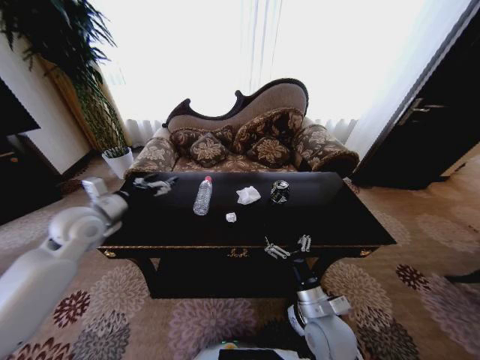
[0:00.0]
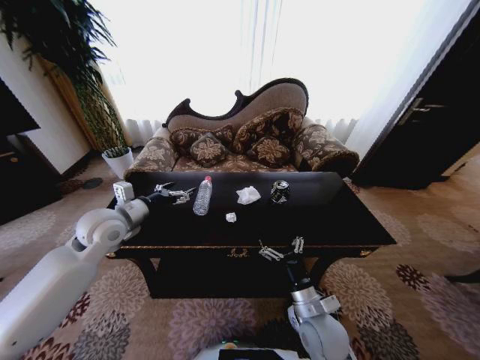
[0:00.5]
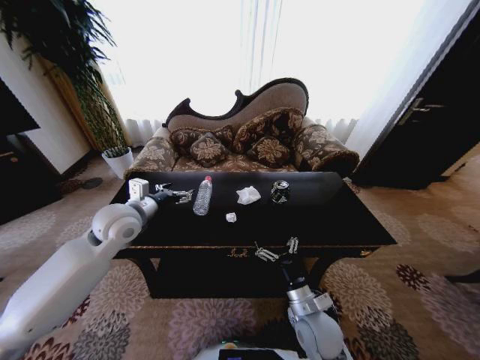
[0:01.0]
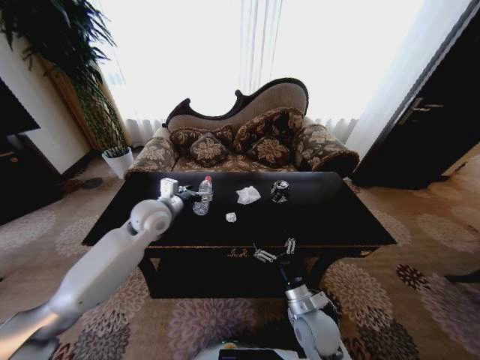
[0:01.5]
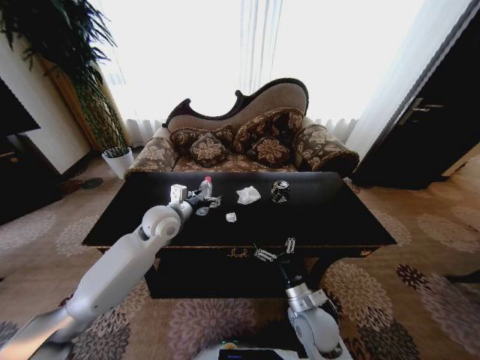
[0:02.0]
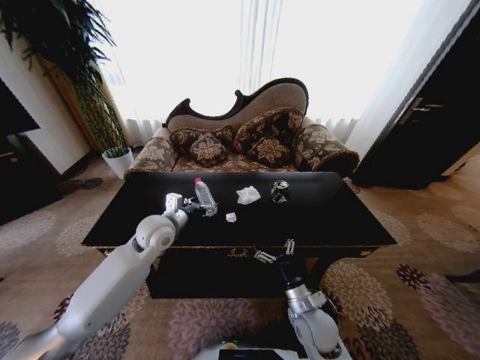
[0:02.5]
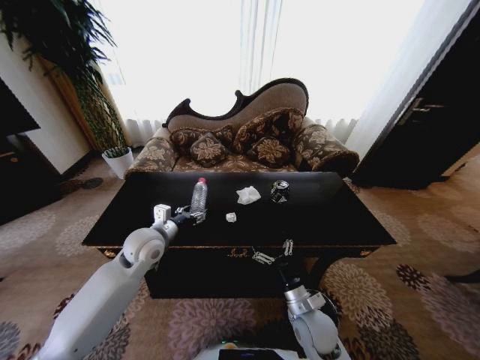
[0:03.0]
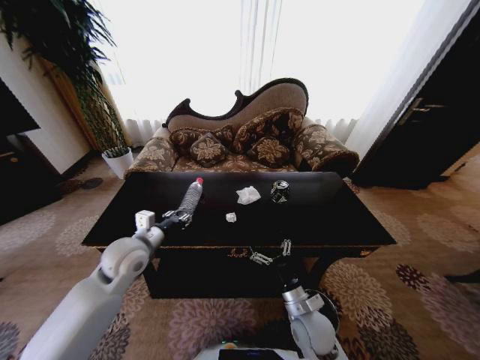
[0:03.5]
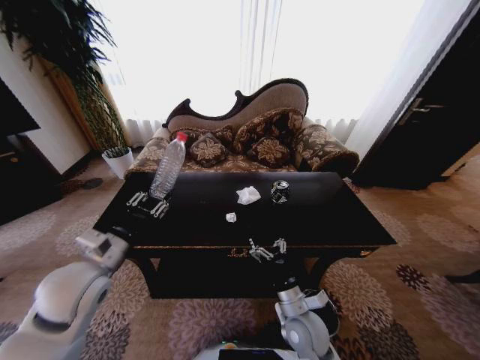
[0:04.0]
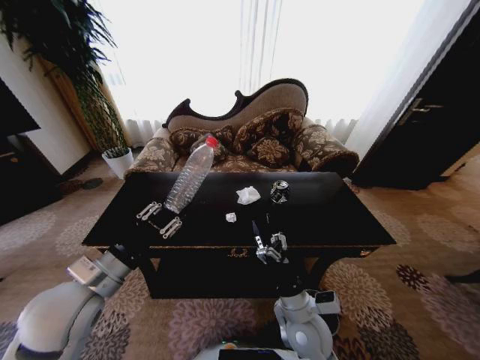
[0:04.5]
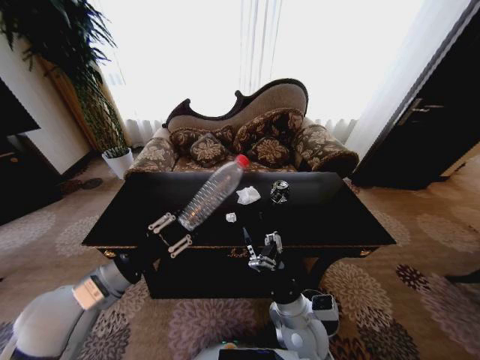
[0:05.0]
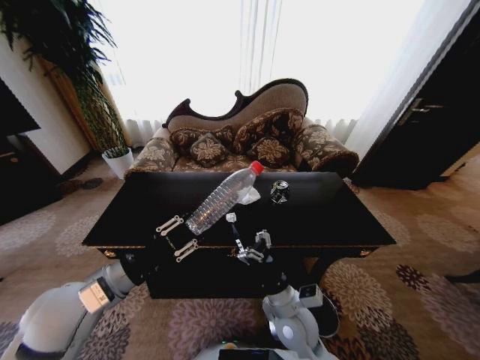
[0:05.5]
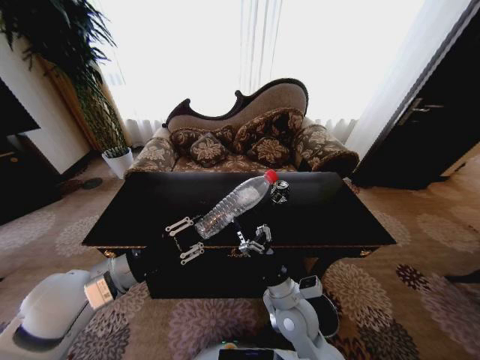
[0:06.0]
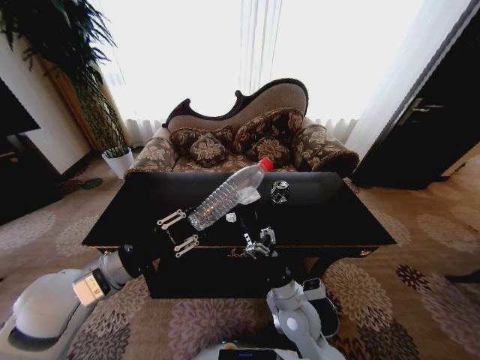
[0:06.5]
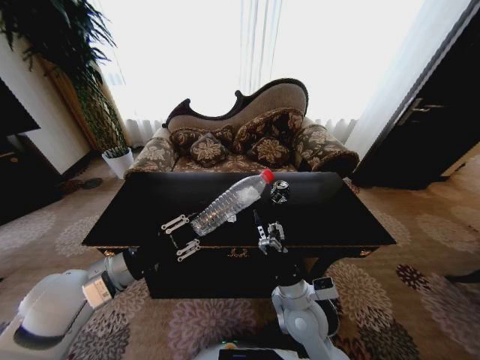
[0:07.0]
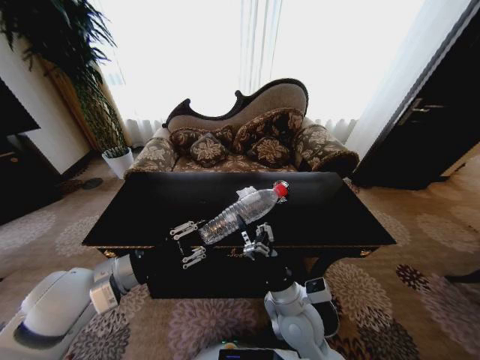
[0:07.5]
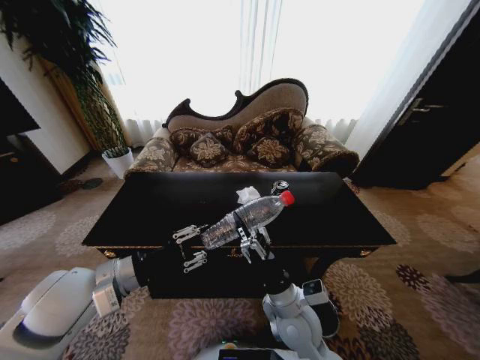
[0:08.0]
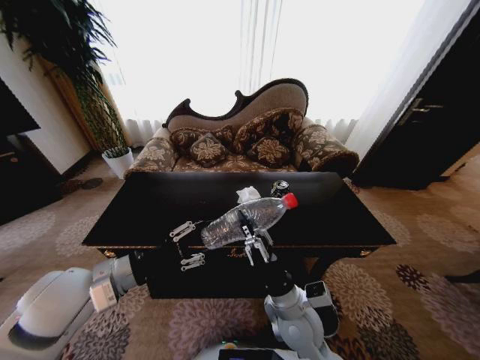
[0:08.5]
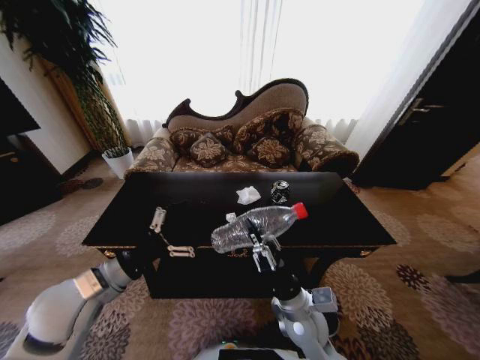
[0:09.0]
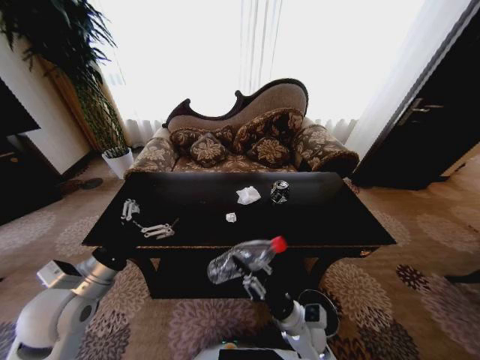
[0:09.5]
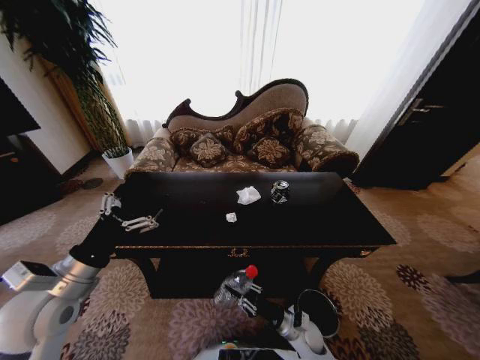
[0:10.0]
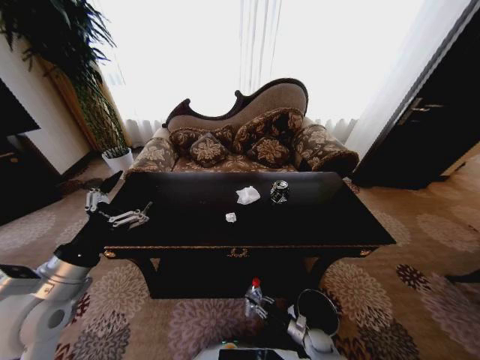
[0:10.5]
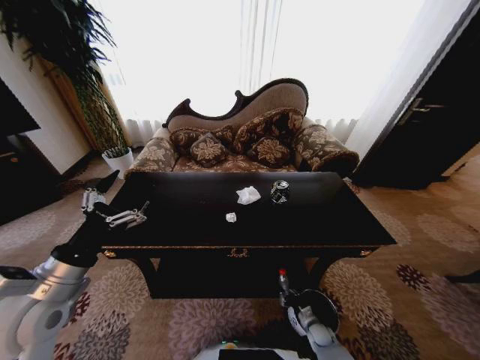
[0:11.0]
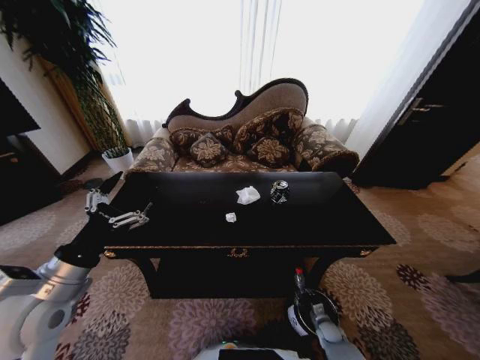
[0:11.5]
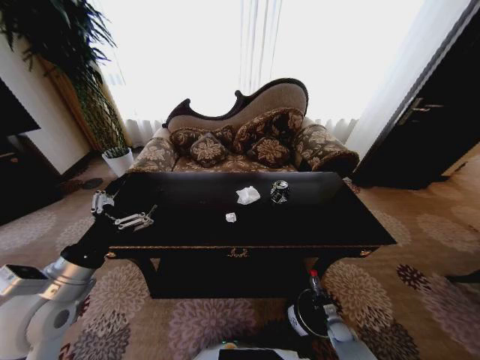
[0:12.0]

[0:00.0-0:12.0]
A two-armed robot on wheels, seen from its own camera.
Task of the whole recording: Move to the front of the table and place the trash on the table into the trash bin.
0:00.0 to 0:02.0: The right gripper shifts by roughly 5 cm. Meanwhile the left gripper goes about 15 cm to the right.
0:02.0 to 0:04.0: The left gripper is displaced backward and to the left by roughly 20 cm, and closes its fingers.
0:04.0 to 0:06.0: The right gripper shifts by approximately 5 cm.
0:06.0 to 0:08.0: There are only small adjustments of the grippers.
0:08.0 to 0:10.0: The right gripper heads downward and to the right, covering about 25 cm, and closes its fingers. The left gripper shifts some 5 cm to the left, and opens its fingers.
0:10.0 to 0:12.0: The right gripper is displaced to the right and downward by approximately 25 cm.

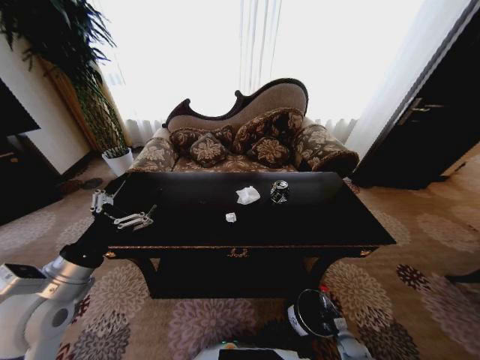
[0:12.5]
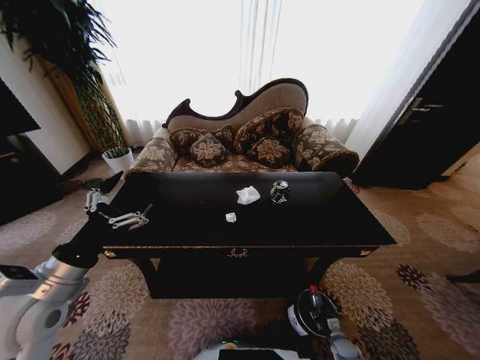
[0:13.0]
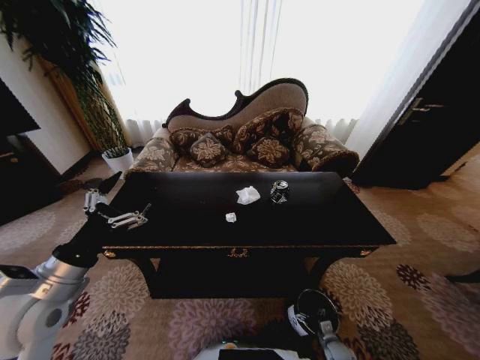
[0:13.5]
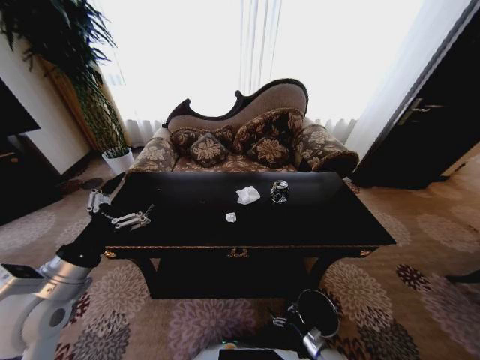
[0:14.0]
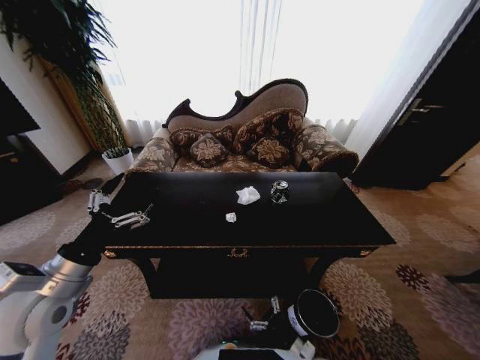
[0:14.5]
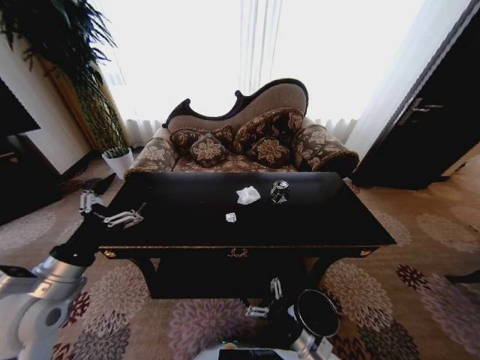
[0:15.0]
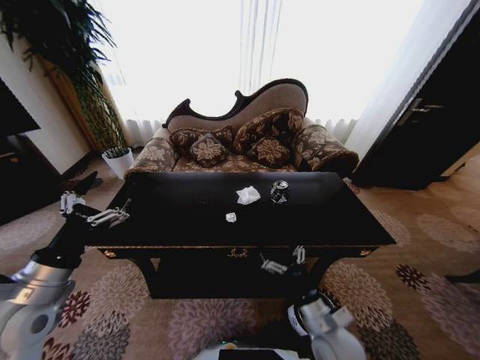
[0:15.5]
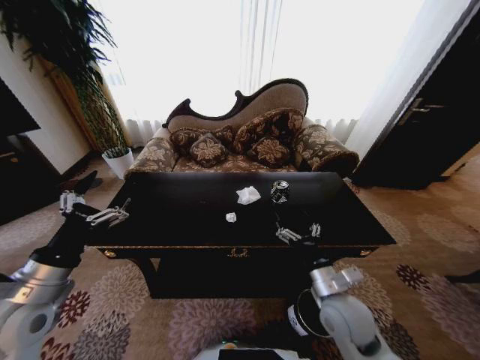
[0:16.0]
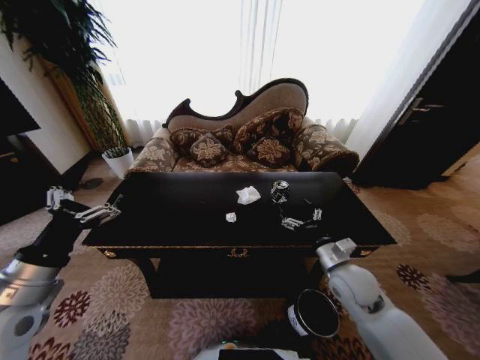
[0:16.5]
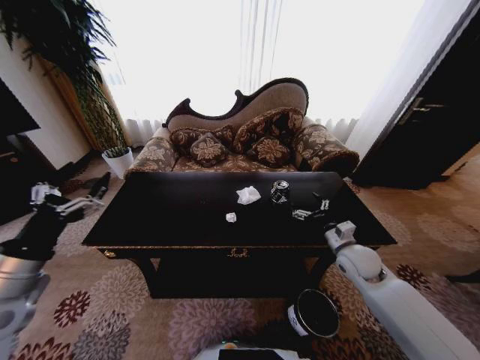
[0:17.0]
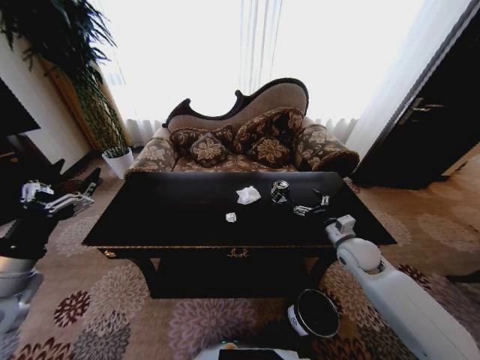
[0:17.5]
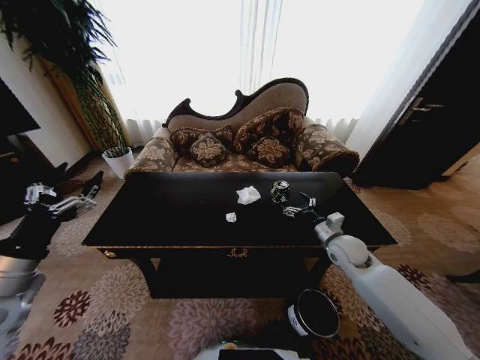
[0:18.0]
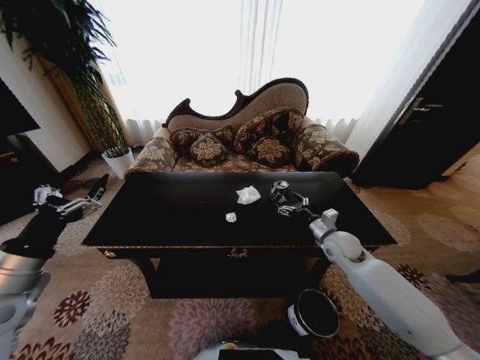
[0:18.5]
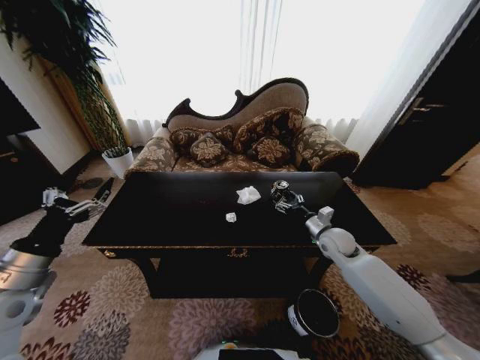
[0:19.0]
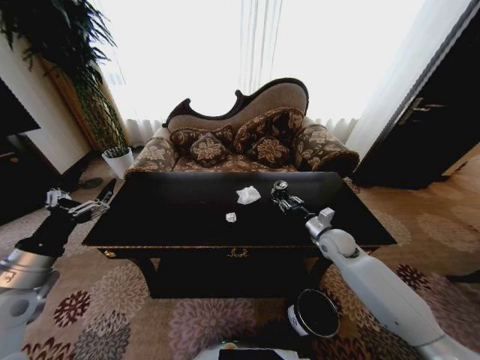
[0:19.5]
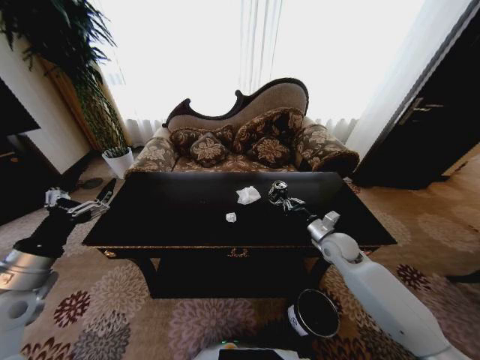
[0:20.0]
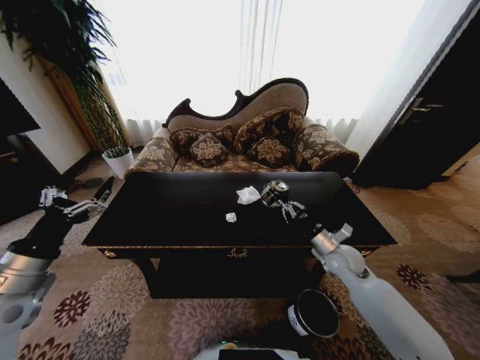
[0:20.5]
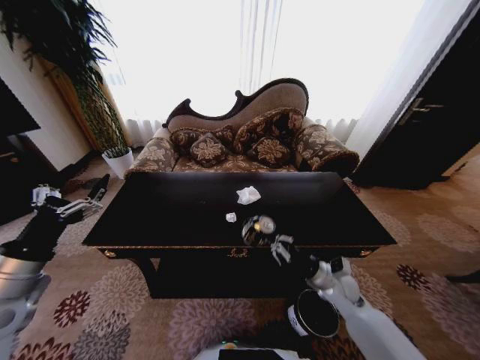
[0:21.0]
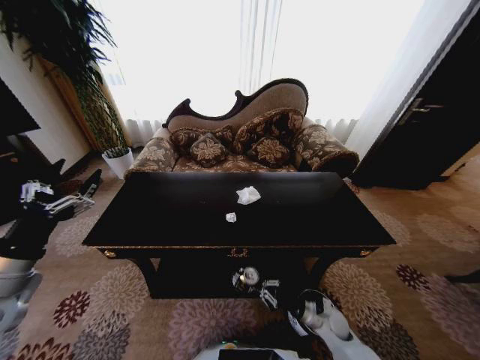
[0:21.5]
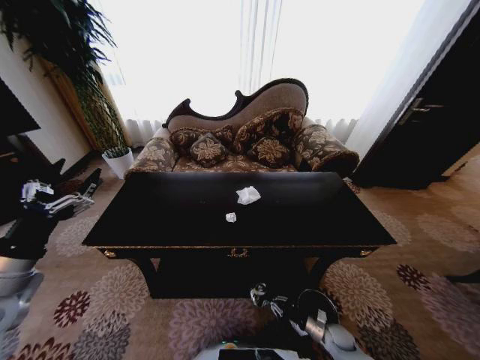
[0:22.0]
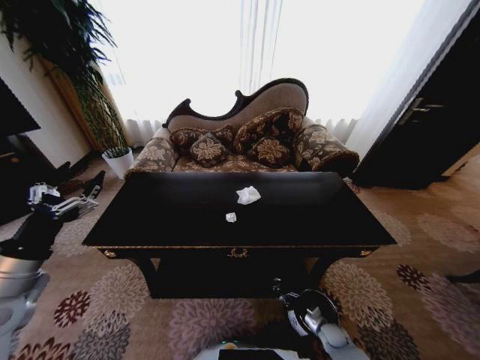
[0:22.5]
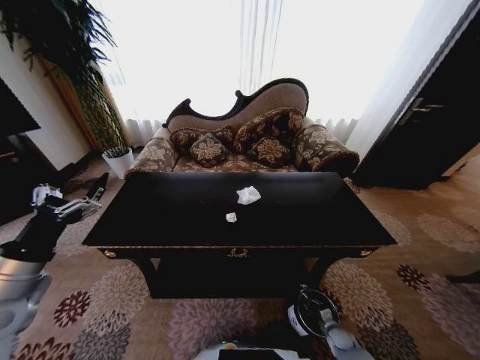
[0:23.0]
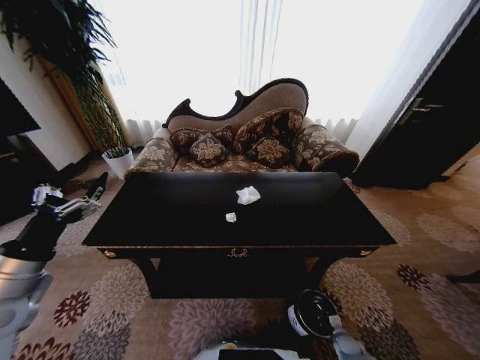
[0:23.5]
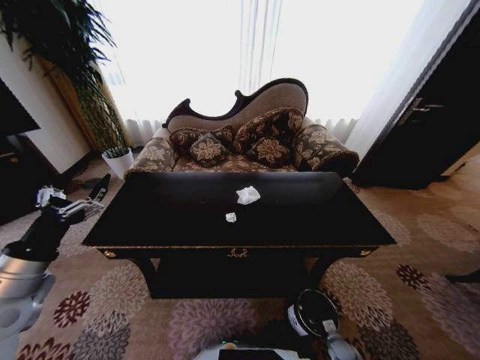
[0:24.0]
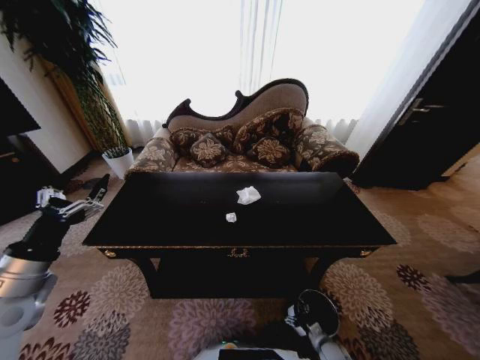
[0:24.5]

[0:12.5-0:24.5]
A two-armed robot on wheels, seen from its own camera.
Task of the whole recording: Move to the front of the table and place the trash on the table into the trash bin.
0:12.5 to 0:14.5: The right gripper goes some 25 cm to the left and upward, and opens.
0:14.5 to 0:16.5: The right gripper is displaced upward and forward by some 30 cm.
0:16.5 to 0:18.5: The right gripper is displaced forward by approximately 10 cm.
0:18.5 to 0:20.5: The right gripper closes up.
0:20.5 to 0:22.5: The right gripper shifts roughly 35 cm downward and backward.
0:22.5 to 0:24.5: The right gripper travels backward by about 5 cm, and opens its fingers.

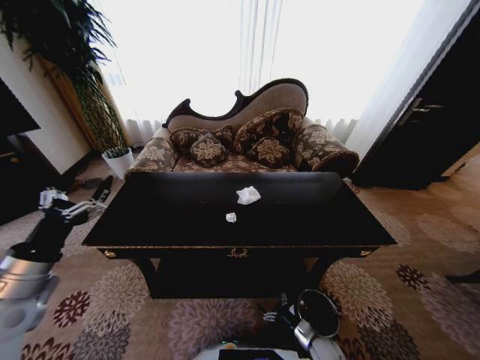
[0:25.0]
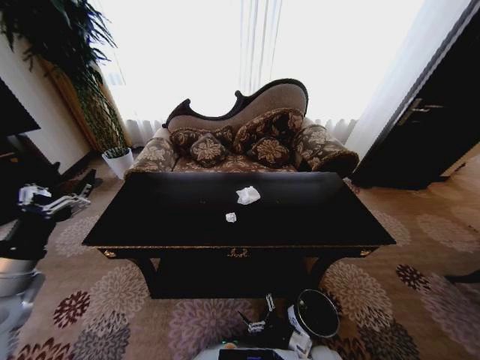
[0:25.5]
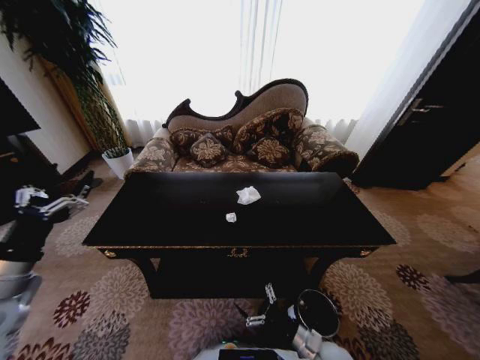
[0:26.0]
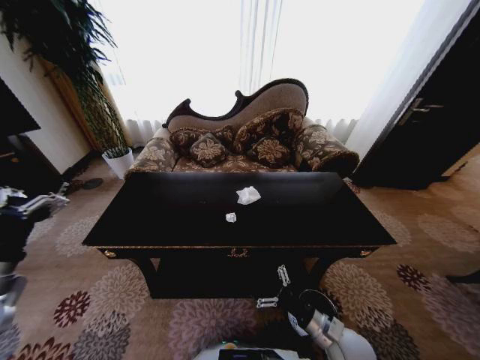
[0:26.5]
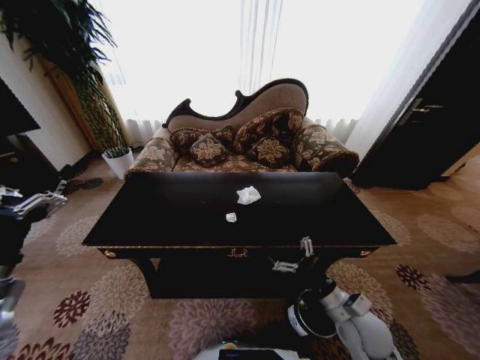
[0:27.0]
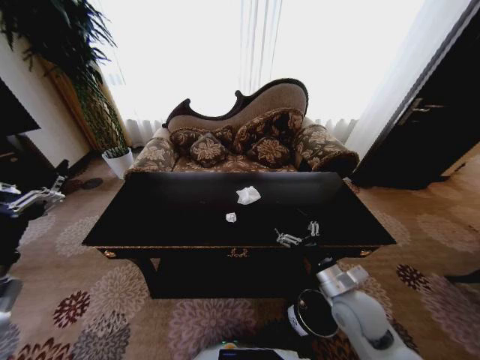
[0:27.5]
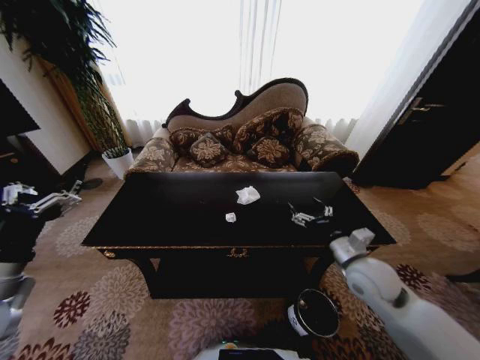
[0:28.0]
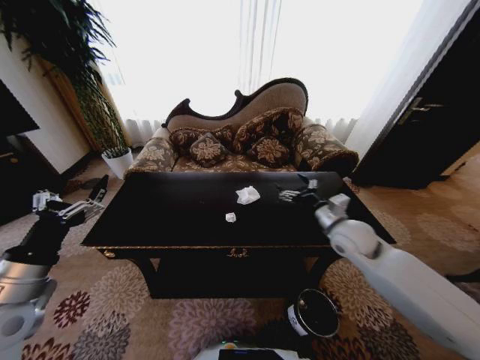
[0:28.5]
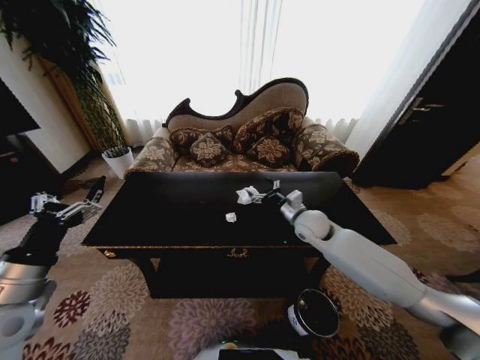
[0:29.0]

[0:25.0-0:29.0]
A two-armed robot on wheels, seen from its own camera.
Task of the whole recording: Move to the front of the table and place the trash on the table into the trash bin.
0:25.0 to 0:27.0: The right gripper shifts about 25 cm upward.
0:27.0 to 0:29.0: The right gripper heads forward, covering approximately 25 cm.
